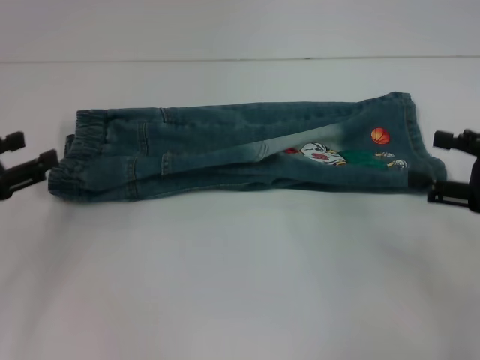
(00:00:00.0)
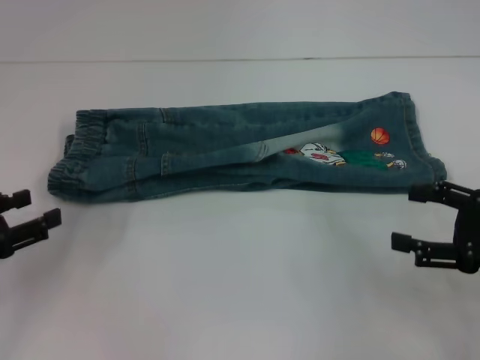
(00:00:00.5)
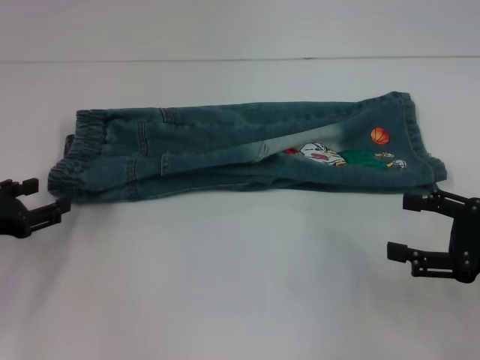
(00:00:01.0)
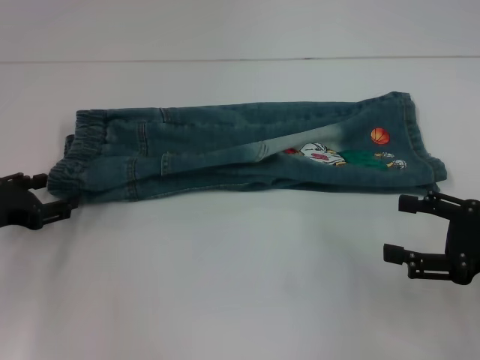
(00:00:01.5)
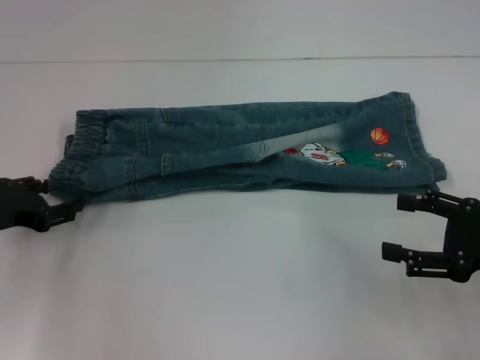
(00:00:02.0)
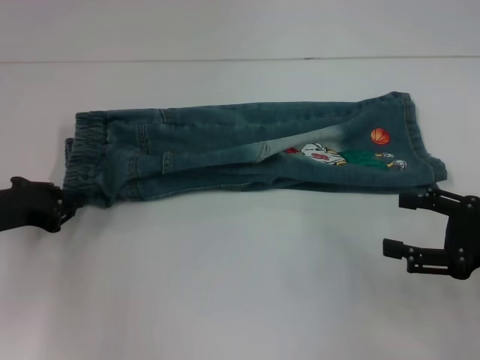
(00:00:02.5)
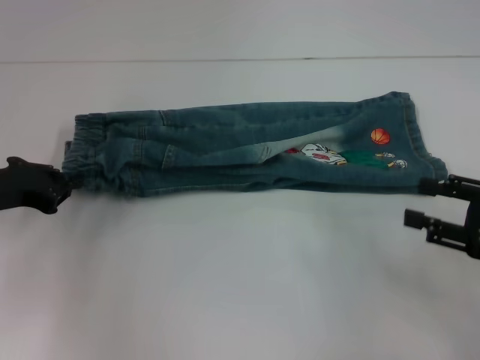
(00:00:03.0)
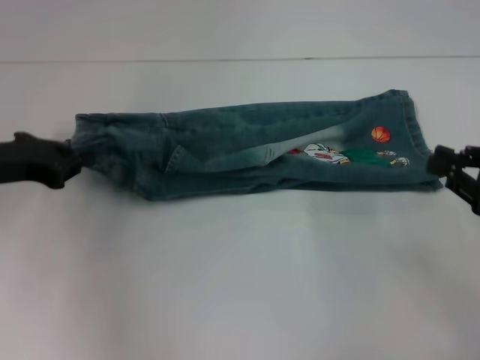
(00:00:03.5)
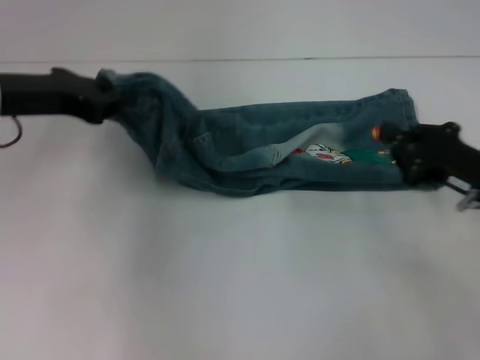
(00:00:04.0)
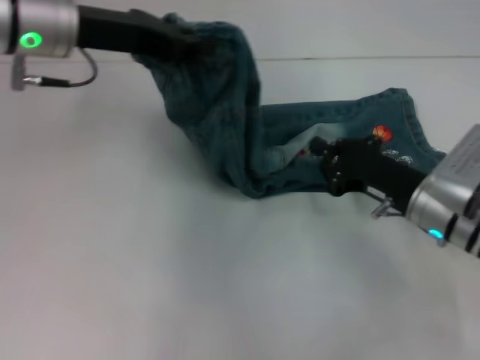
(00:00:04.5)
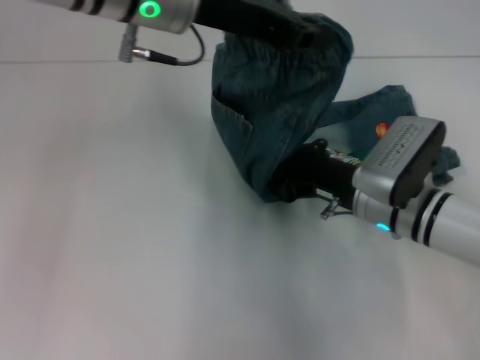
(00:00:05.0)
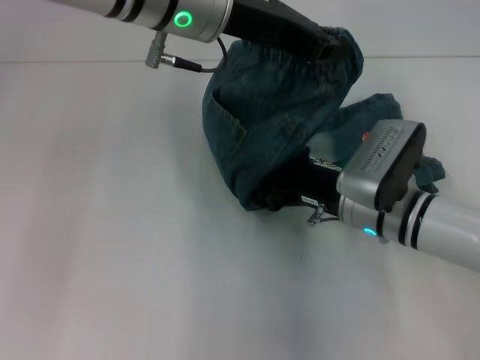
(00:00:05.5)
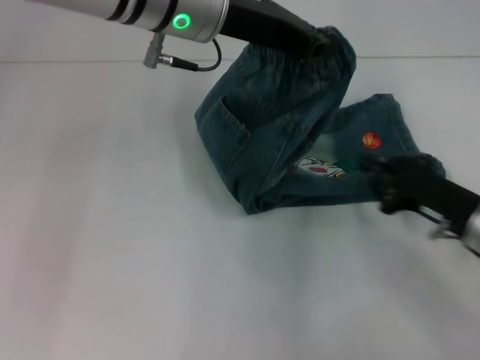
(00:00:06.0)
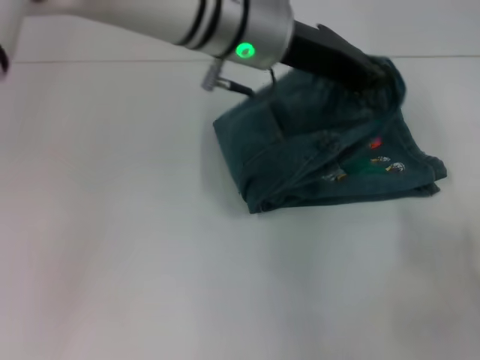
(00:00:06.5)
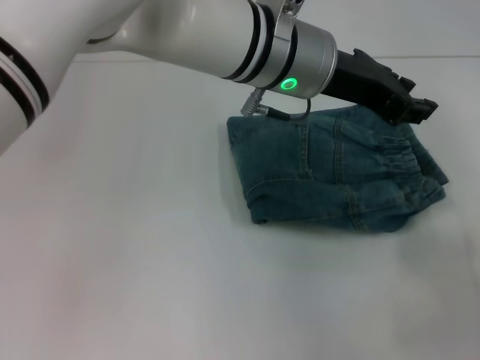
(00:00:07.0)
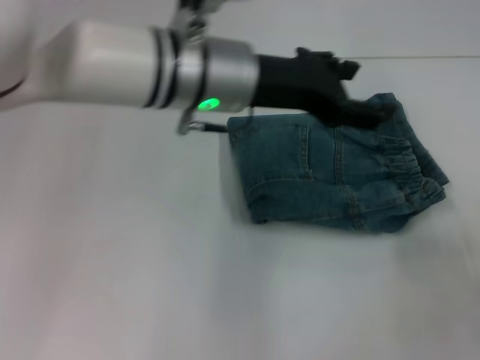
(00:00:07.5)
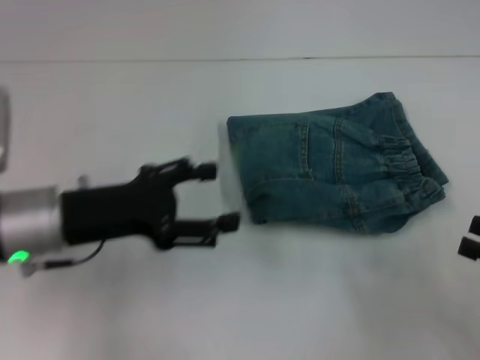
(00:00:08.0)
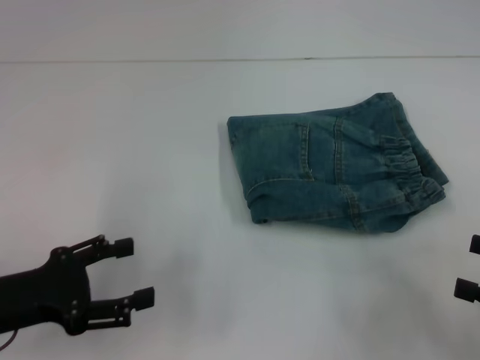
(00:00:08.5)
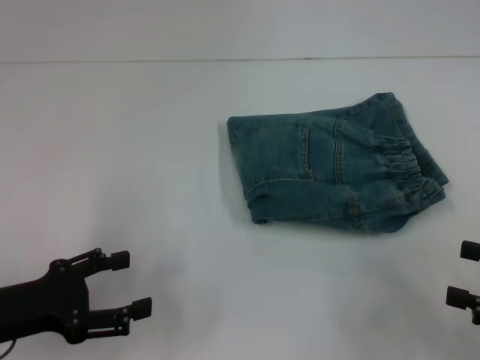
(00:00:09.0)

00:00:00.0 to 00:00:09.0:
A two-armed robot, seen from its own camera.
Step, 00:00:00.0 to 00:00:02.5: Hold the waistband with your left hand.
Step, 00:00:03.0 to 00:00:05.0: Press the middle of the pants with your right hand.
Step, 00:00:05.5 to 00:00:06.5: Fold to the right with your left hand.
00:00:00.0 to 00:00:02.0: The left gripper shifts by roughly 5 cm.
00:00:02.0 to 00:00:04.5: The left gripper is displaced upward, to the right and forward by some 25 cm, and closes its fingers; the right gripper shifts roughly 15 cm to the left, forward and downward, and closes.
00:00:04.5 to 00:00:07.0: The right gripper goes about 20 cm to the right and backward; the left gripper goes approximately 20 cm to the right.
00:00:07.0 to 00:00:09.0: The right gripper opens up; the left gripper heads to the left, backward and downward, covering about 40 cm, and opens up.
